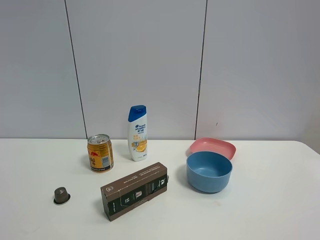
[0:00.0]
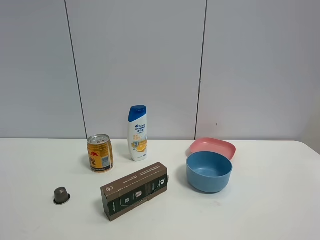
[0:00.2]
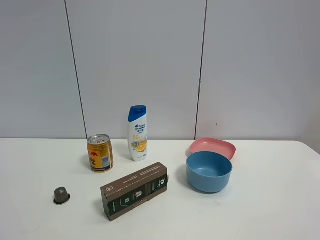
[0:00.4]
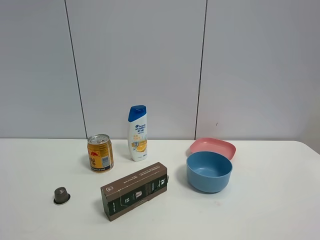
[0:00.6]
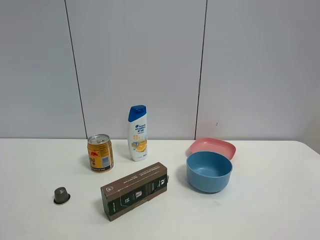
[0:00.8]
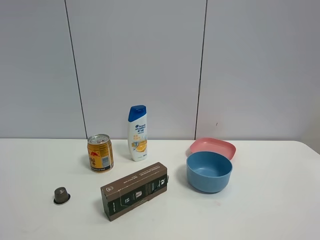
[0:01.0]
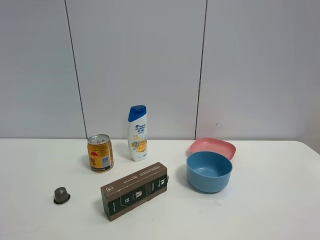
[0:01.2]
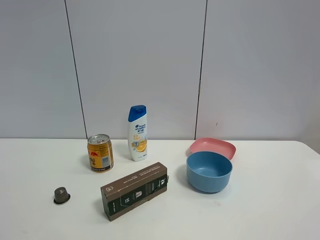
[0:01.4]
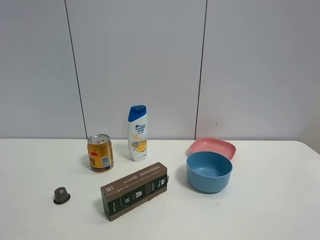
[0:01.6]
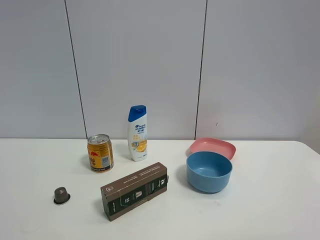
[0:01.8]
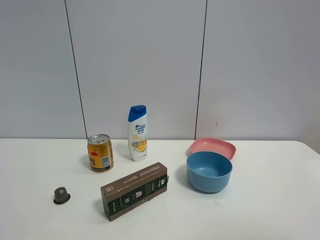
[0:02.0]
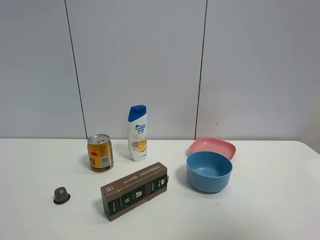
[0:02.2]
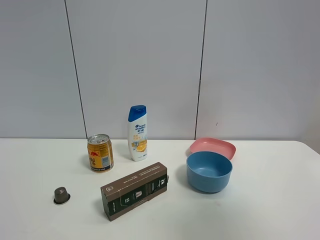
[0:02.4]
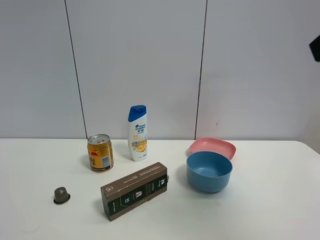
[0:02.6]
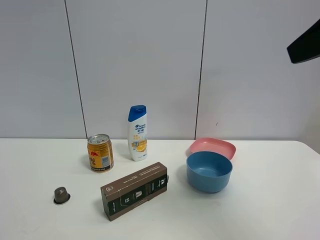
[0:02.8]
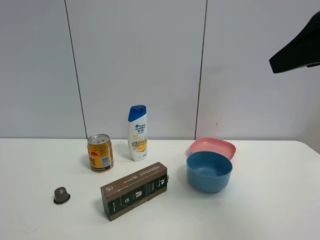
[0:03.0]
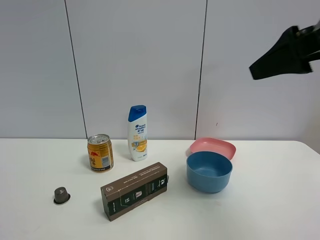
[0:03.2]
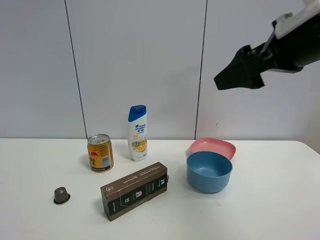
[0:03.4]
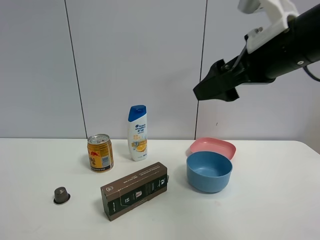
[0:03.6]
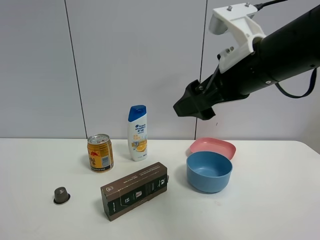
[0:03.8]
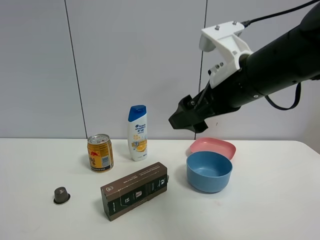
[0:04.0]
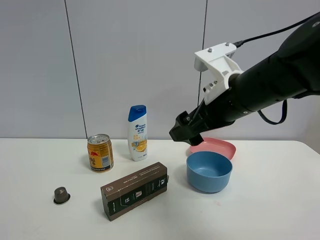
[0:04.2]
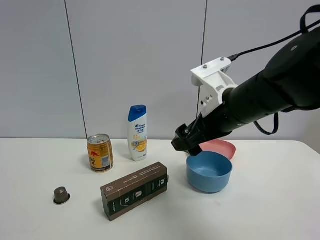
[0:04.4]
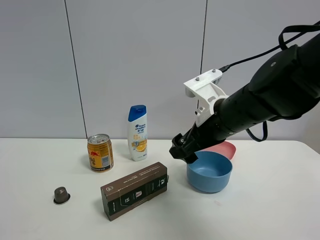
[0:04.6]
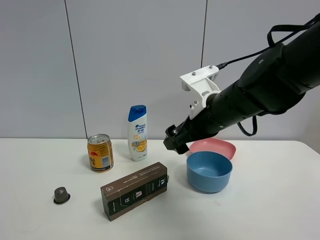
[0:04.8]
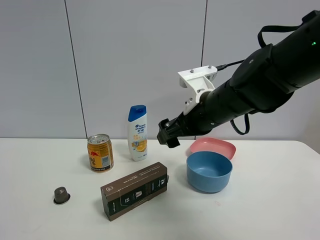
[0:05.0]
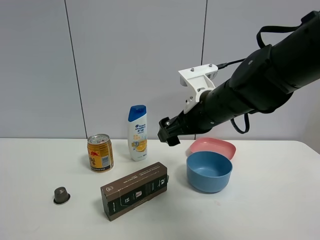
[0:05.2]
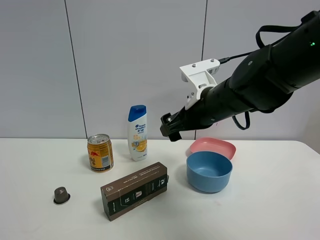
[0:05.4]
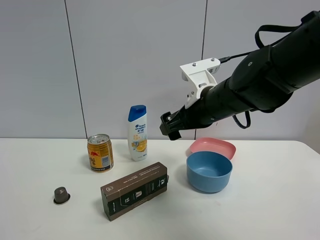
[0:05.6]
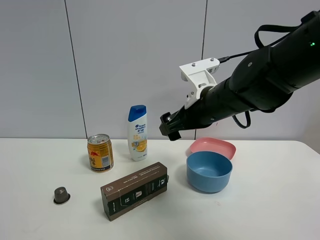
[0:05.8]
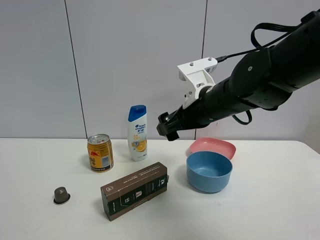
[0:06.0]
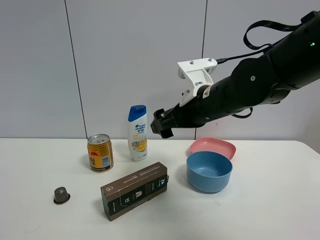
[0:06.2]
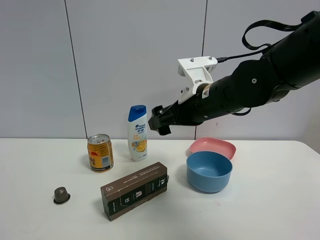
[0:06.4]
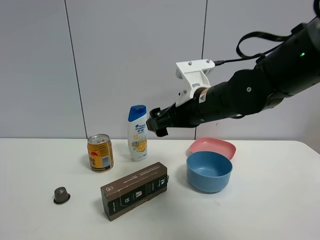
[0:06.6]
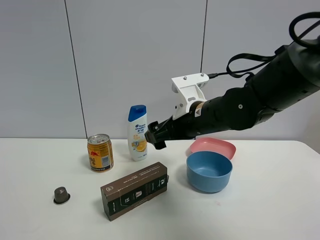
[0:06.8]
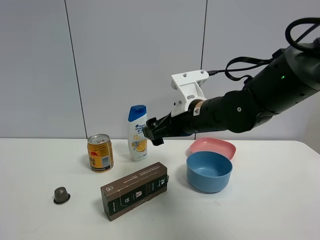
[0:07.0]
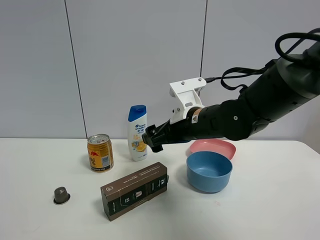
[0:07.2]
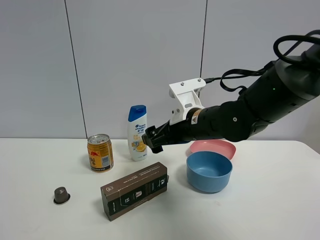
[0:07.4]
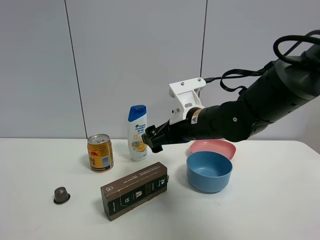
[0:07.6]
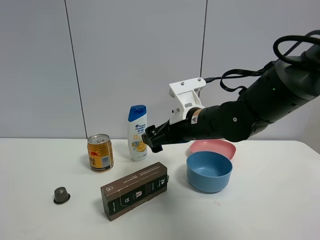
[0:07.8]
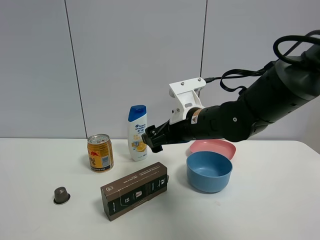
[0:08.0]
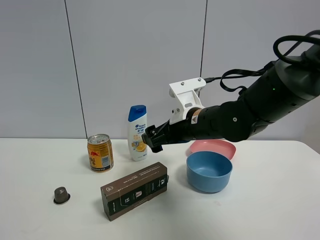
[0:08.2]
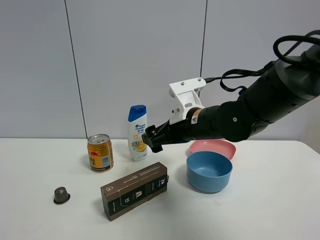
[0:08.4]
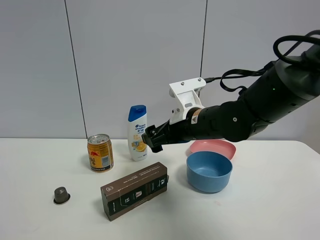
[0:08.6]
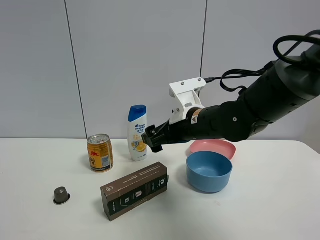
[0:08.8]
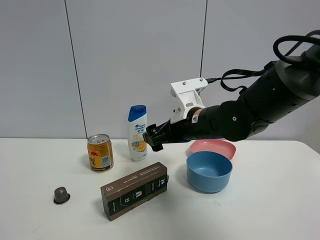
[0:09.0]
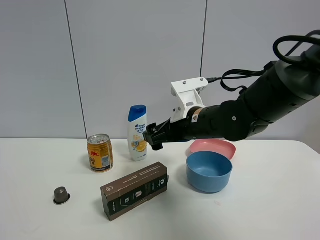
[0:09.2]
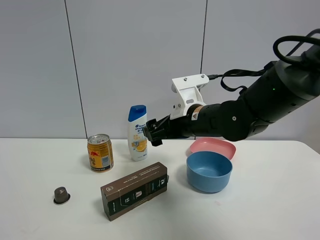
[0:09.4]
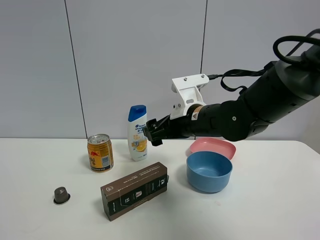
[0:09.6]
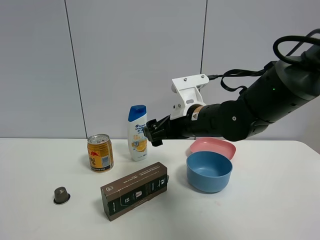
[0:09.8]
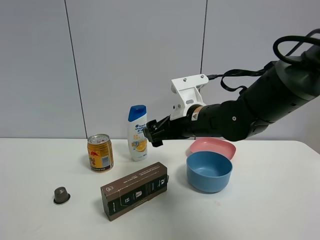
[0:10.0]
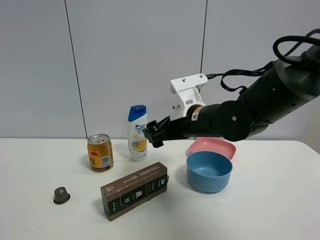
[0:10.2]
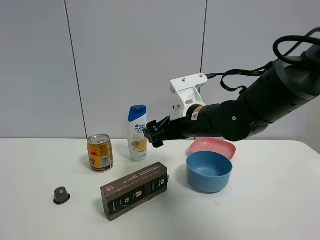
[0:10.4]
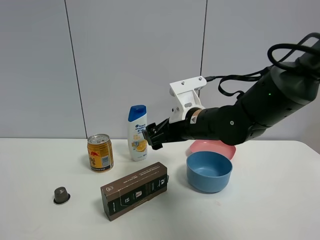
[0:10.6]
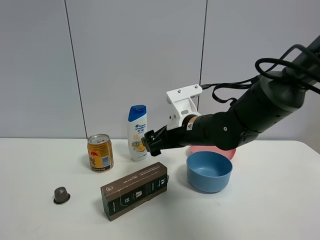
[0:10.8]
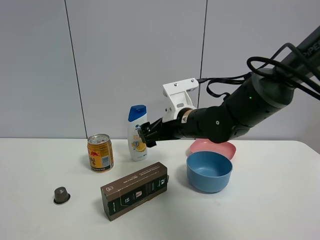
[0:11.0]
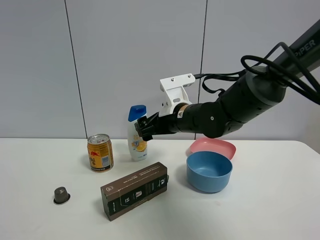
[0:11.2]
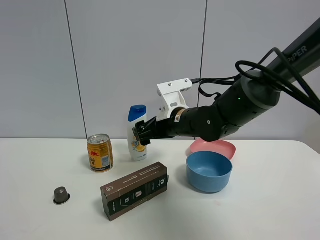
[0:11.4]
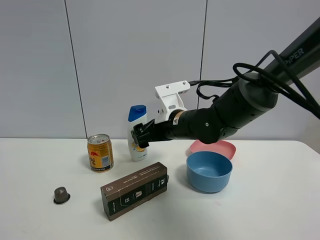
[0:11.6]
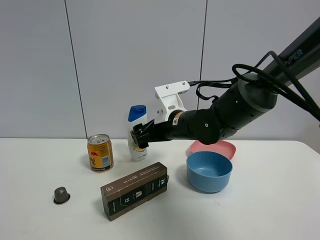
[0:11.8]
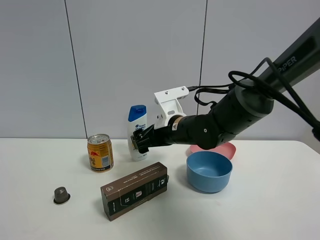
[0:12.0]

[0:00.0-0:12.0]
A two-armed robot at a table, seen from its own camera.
Task of the whole recording: the gripper move the object.
0:01.6 to 0:03.0: The right gripper is displaced forward by some 20 cm.
0:03.0 to 0:04.4: The right gripper moves downward, to the left and forward, approximately 20 cm.
0:04.4 to 0:06.0: The grippers move only a little.
0:06.0 to 0:07.6: The right gripper moves approximately 5 cm.
0:07.6 to 0:10.4: Neither gripper changes place.
0:10.4 to 0:12.0: The right gripper changes place by roughly 5 cm.

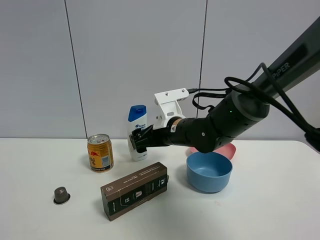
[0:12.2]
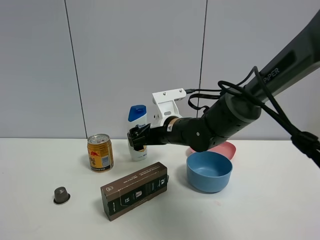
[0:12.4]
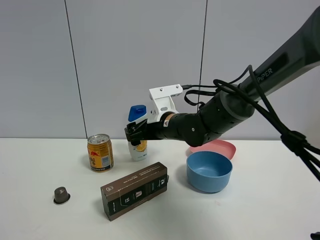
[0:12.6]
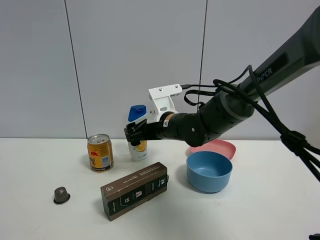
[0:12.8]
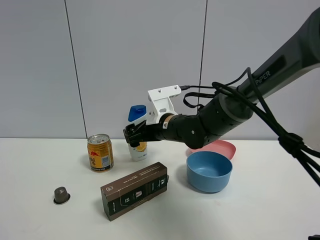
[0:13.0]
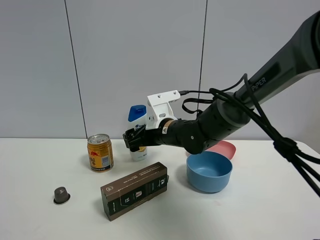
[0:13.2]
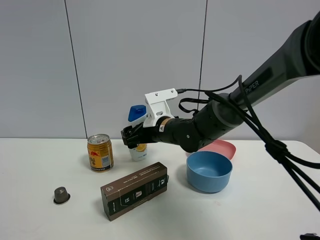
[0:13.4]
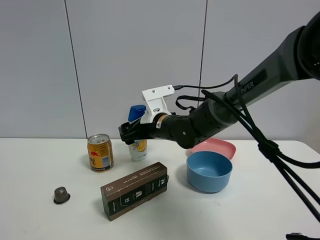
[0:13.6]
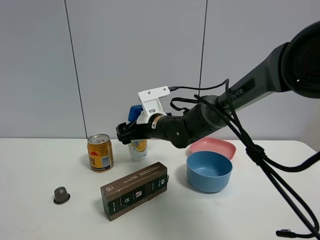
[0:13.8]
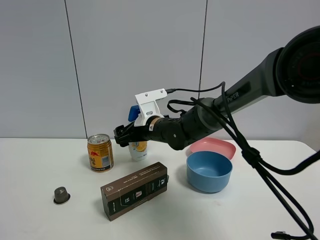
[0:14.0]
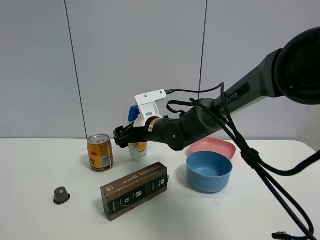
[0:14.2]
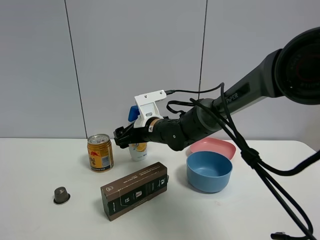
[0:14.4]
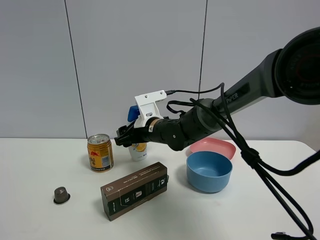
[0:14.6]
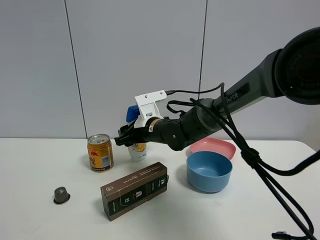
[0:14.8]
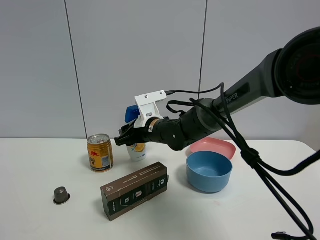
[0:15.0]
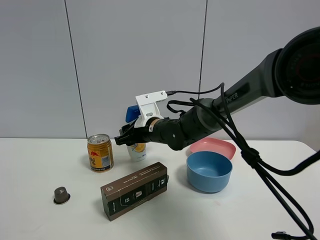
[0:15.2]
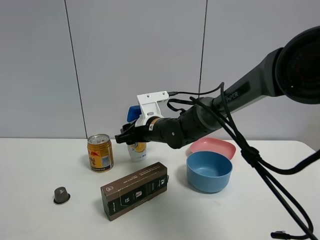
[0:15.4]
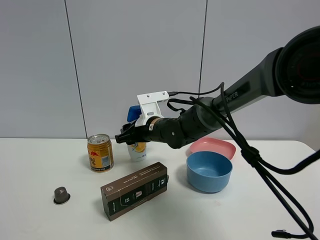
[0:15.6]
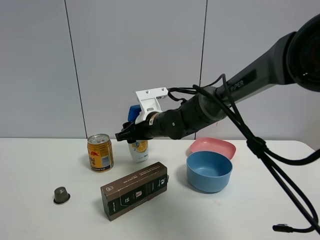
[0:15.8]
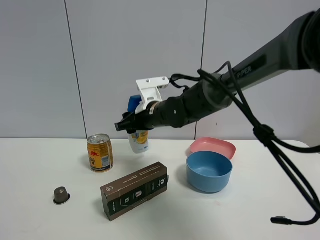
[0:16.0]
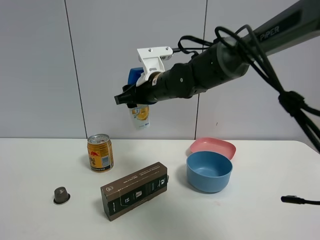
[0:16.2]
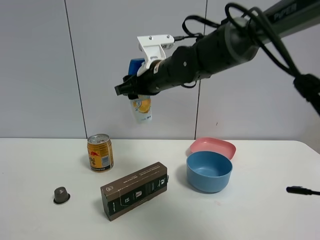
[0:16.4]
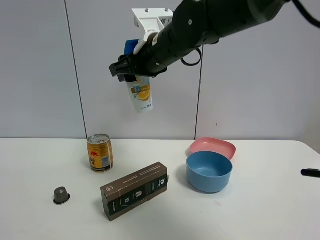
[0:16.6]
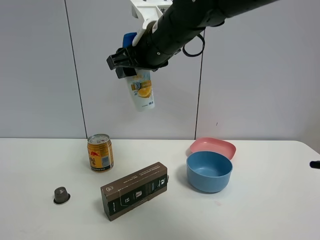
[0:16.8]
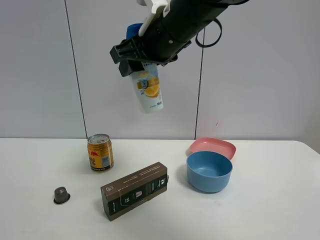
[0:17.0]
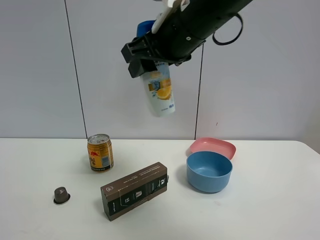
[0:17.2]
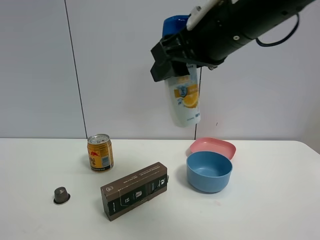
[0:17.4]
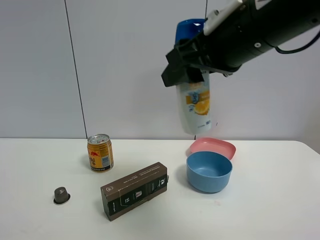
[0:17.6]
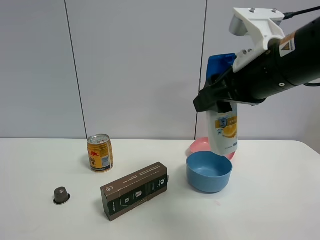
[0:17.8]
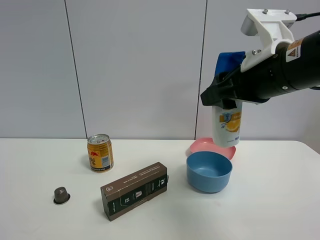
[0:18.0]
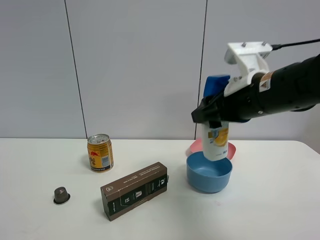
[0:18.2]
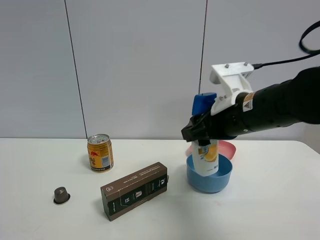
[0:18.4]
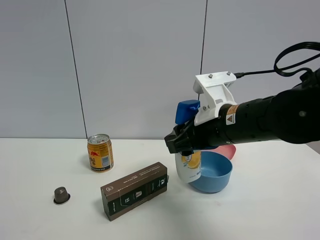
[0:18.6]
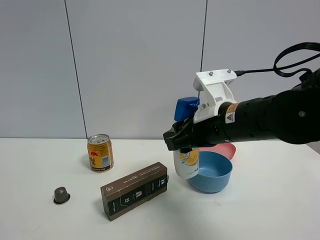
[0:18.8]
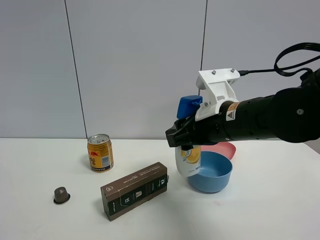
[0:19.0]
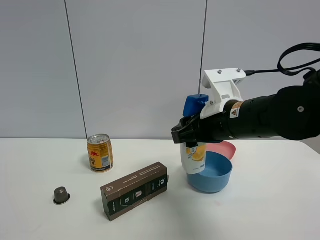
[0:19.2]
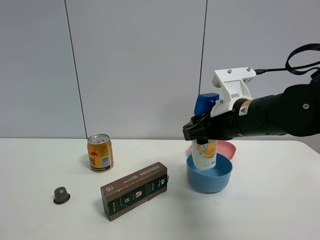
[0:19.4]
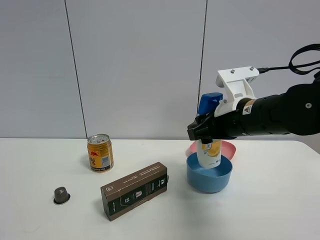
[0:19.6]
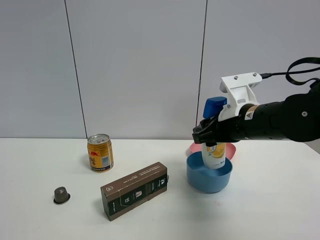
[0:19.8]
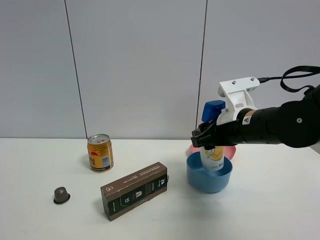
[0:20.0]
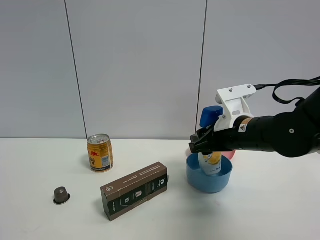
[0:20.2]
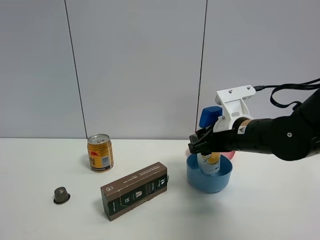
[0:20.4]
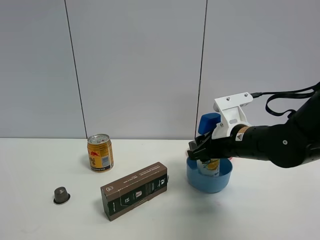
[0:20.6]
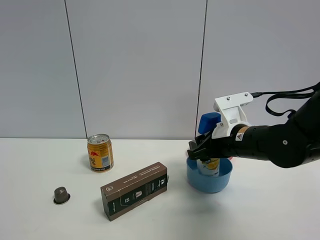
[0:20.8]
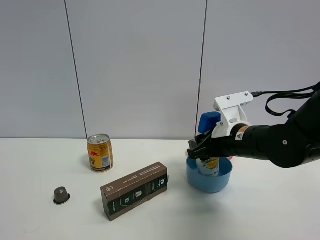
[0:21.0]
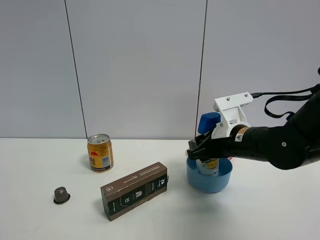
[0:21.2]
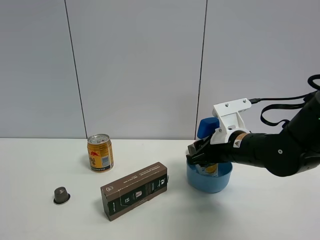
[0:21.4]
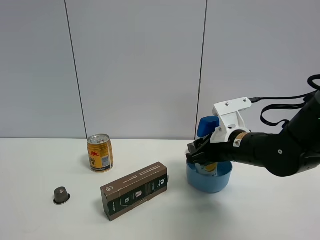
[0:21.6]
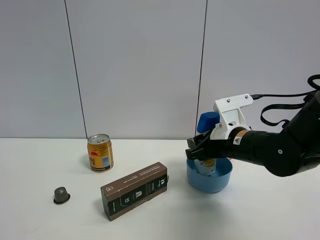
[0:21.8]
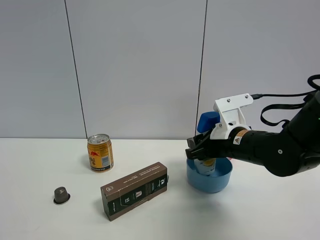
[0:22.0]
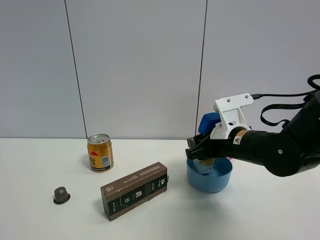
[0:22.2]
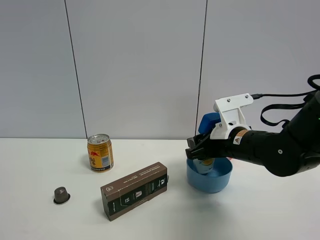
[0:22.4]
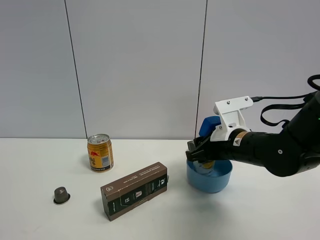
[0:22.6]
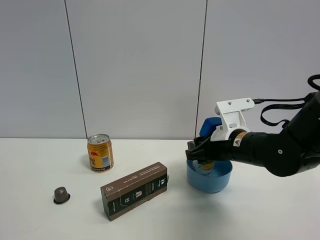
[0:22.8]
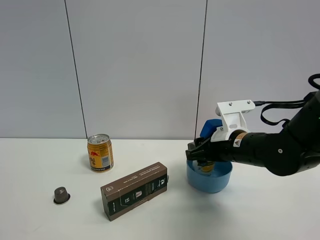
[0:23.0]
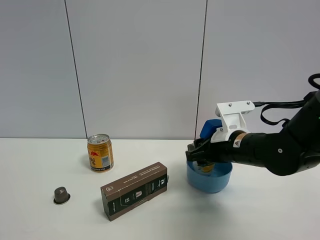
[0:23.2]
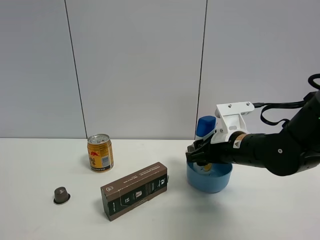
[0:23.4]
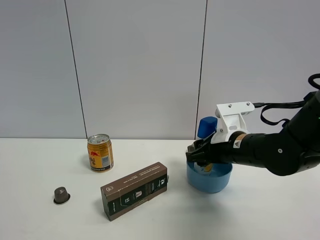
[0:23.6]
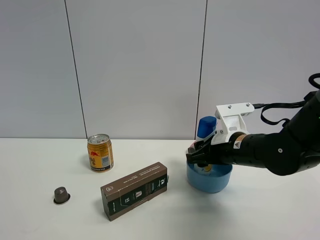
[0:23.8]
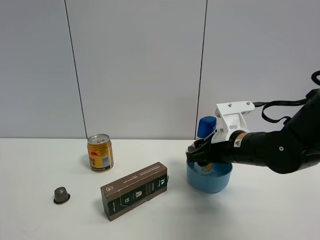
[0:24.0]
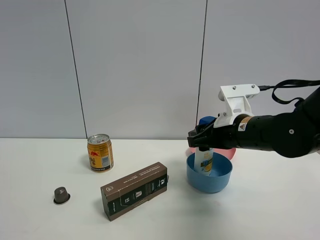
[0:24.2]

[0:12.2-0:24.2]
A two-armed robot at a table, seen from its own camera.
Task of the whole recording: the gripper move the object.
Step, 0:12.2 to 0:15.0: Grasp the shampoo with the right gripper.
0:12.2 to 0:13.8: The right gripper goes some 5 cm forward.
0:13.8 to 0:15.2: The right gripper closes its fingers.
0:15.2 to 0:16.6: The right gripper heads upward, covering some 20 cm.
0:16.6 to 0:18.2: The right gripper moves to the right, backward and downward, approximately 20 cm.
0:18.2 to 0:19.8: The right gripper heads downward, covering roughly 5 cm.
0:19.8 to 0:21.2: The grippers move only a little.
0:21.2 to 0:22.6: The two grippers keep their place.
0:22.6 to 0:24.2: There are only small adjustments of the grippers.
